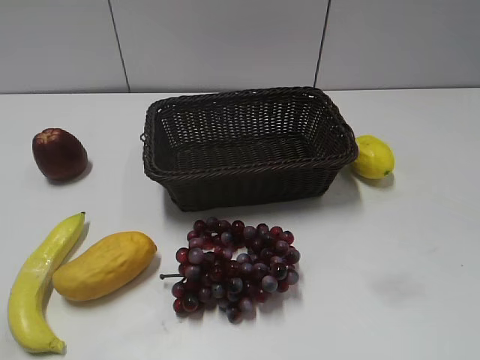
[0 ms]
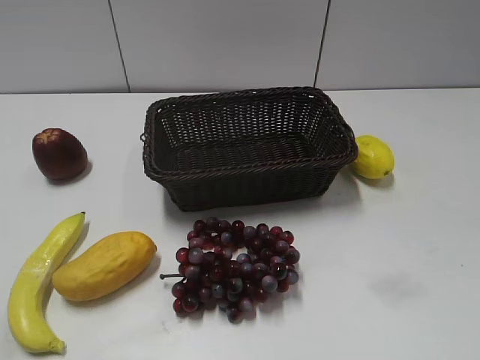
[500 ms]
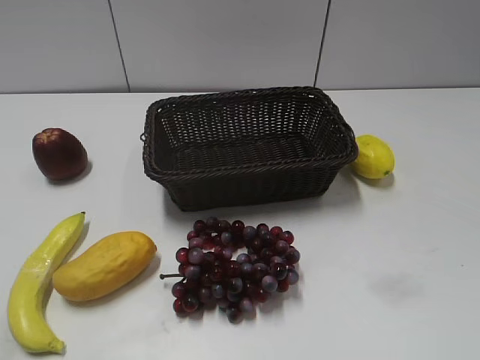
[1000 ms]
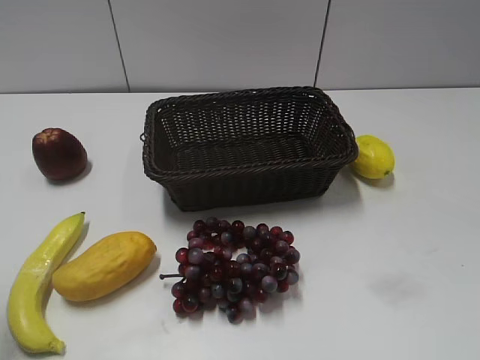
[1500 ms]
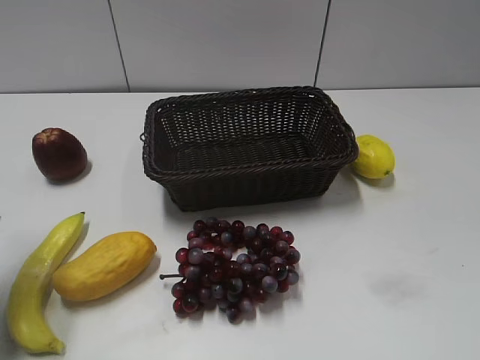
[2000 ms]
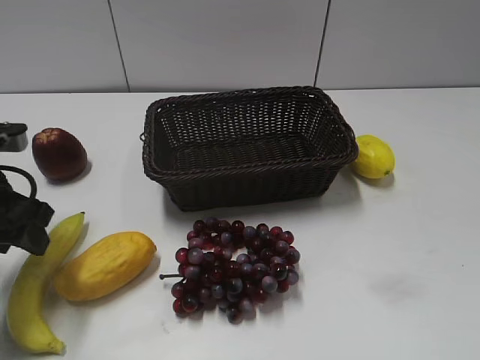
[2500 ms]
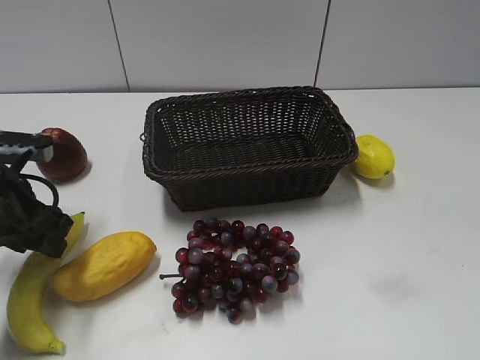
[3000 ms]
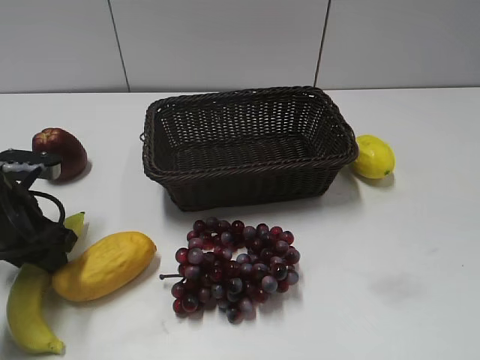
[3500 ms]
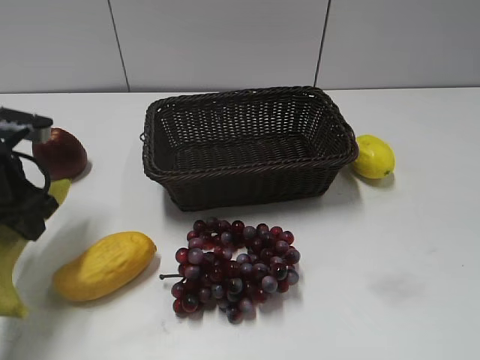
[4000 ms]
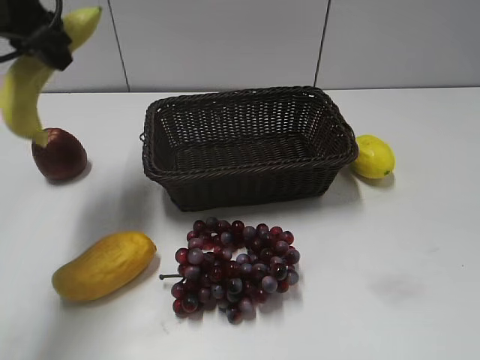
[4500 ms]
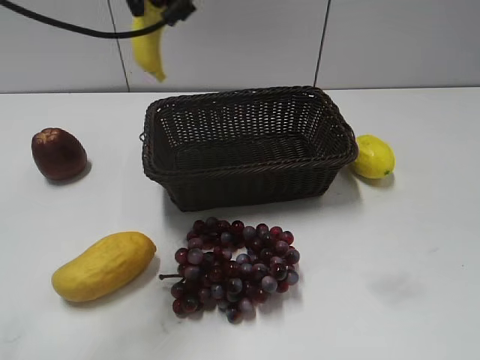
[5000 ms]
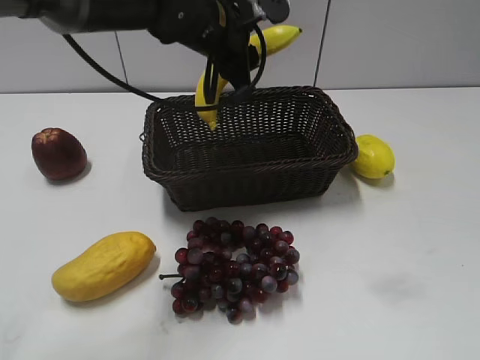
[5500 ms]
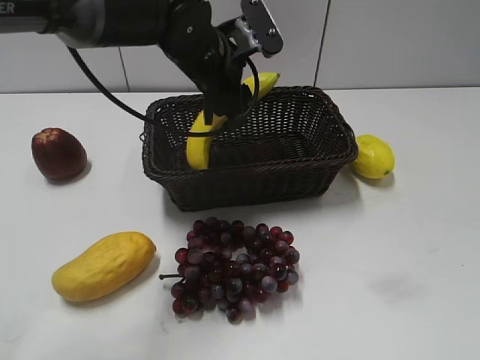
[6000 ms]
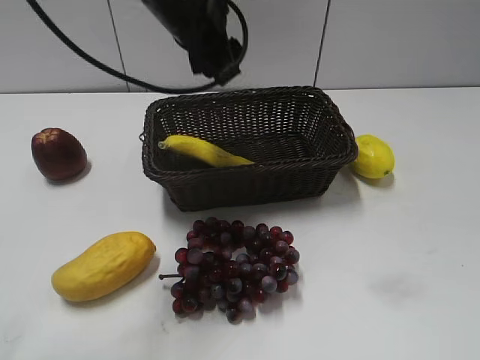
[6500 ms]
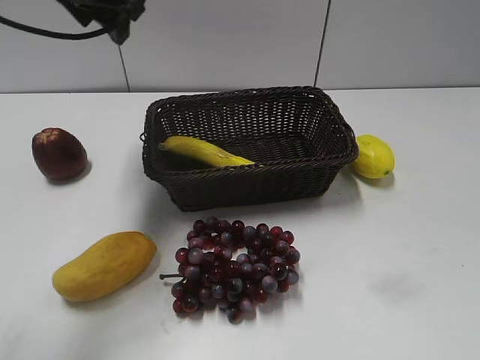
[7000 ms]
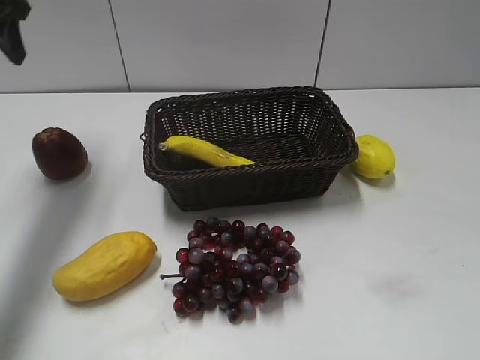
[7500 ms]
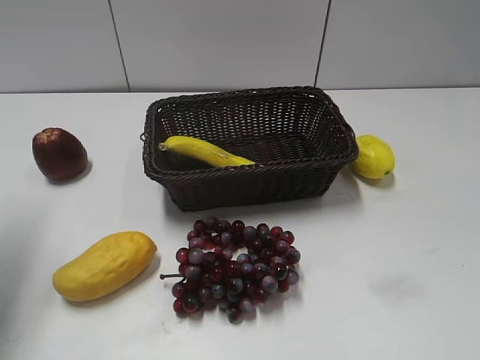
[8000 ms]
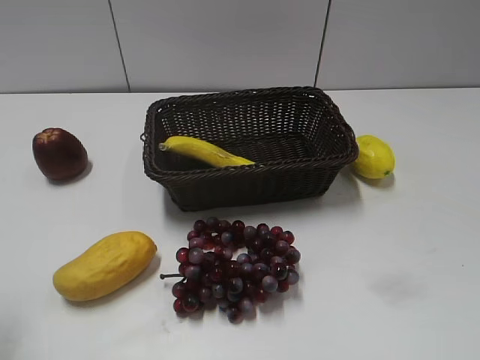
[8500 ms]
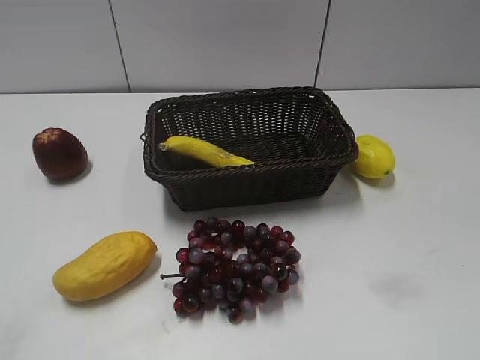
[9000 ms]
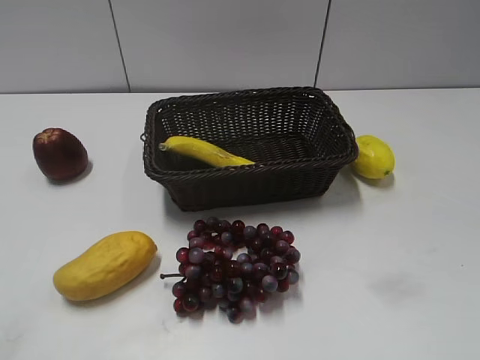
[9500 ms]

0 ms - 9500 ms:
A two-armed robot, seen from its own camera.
Step, 2500 ms - 3500 ms: Grasp the banana with left gripper.
Step, 4000 ms - 6000 ms: Place the banana in the basket with left gripper.
2000 ms - 4000 ms: The left gripper shifts roughly 10 cm downward and forward, and closes its fingers.
4000 ms - 5500 ms: The left gripper travels to the right and forward by some 25 cm.
5500 ms - 7500 ms: The left gripper travels to the left by about 25 cm, and opens up.
7500 ms - 9500 ms: The left gripper heads backward, covering roughly 40 cm.
